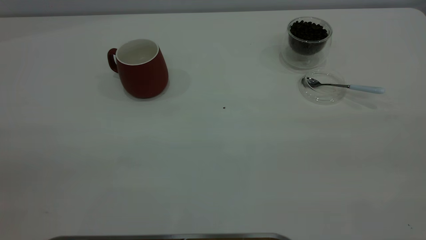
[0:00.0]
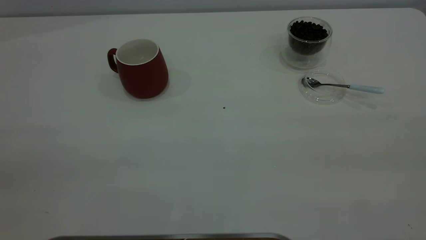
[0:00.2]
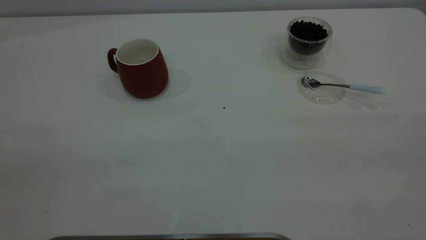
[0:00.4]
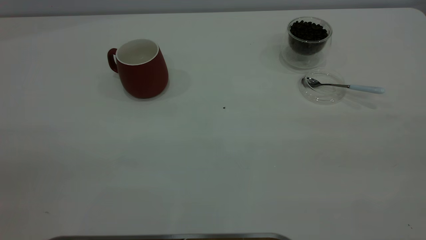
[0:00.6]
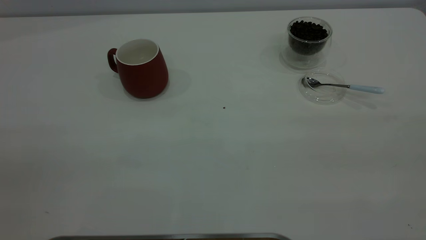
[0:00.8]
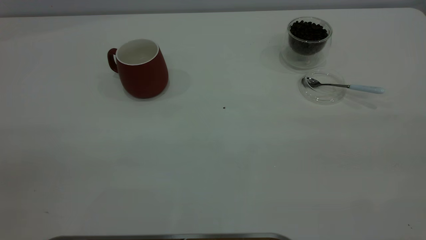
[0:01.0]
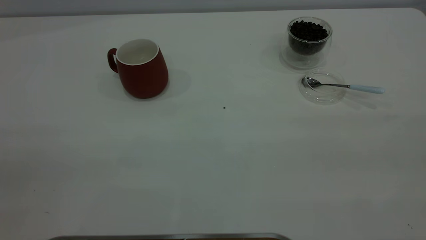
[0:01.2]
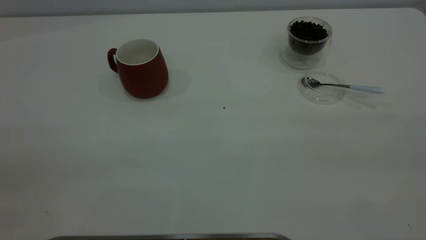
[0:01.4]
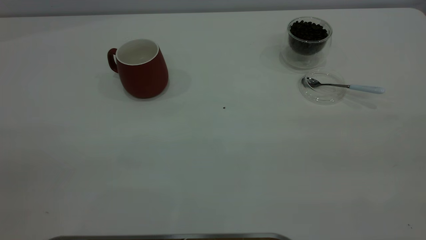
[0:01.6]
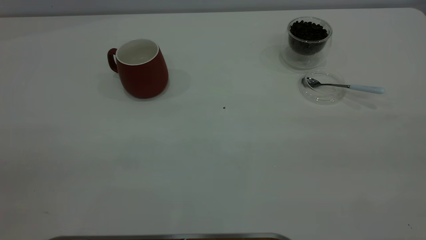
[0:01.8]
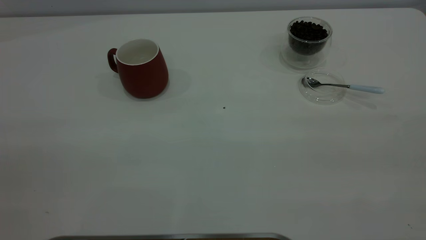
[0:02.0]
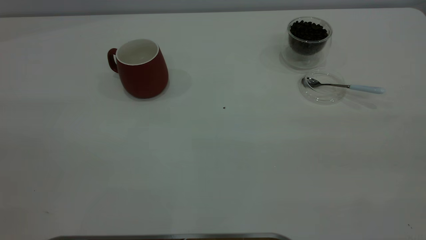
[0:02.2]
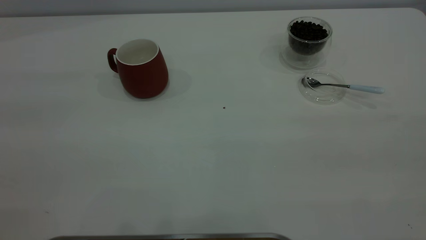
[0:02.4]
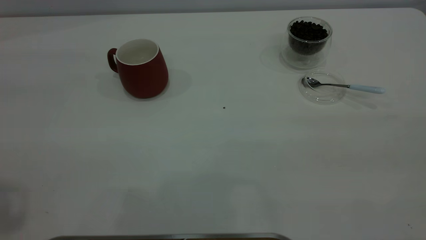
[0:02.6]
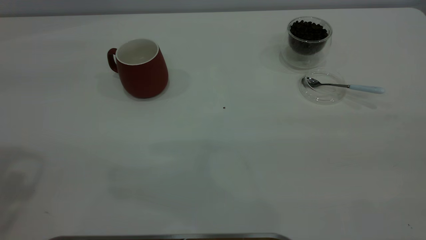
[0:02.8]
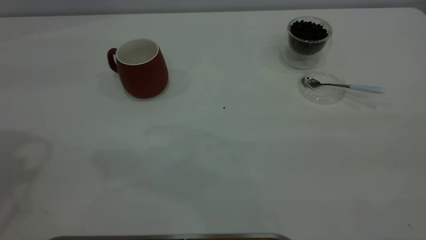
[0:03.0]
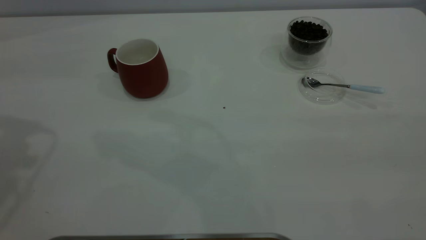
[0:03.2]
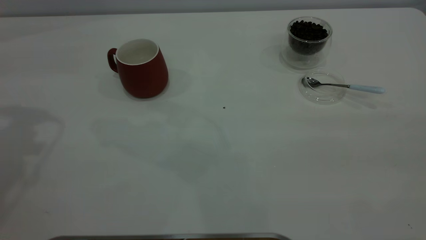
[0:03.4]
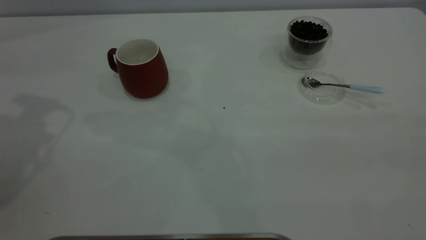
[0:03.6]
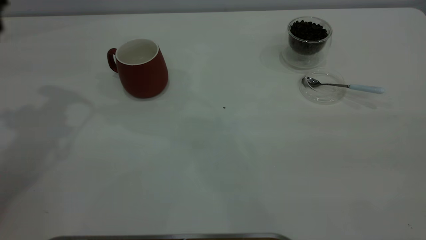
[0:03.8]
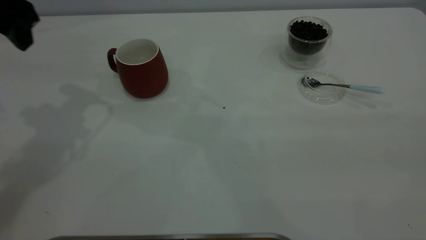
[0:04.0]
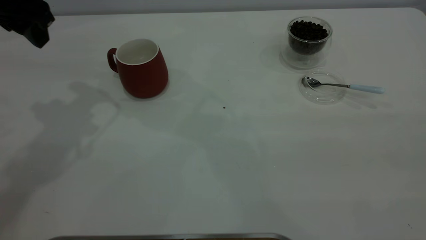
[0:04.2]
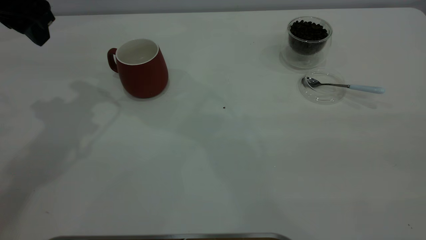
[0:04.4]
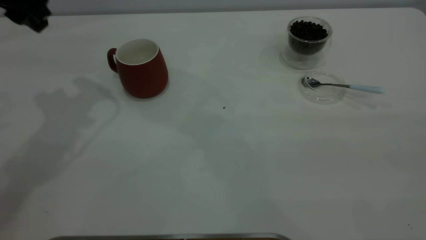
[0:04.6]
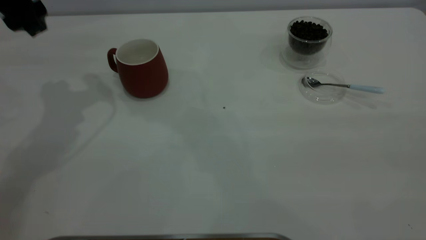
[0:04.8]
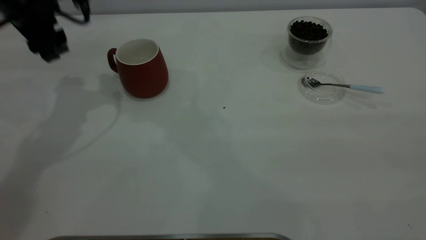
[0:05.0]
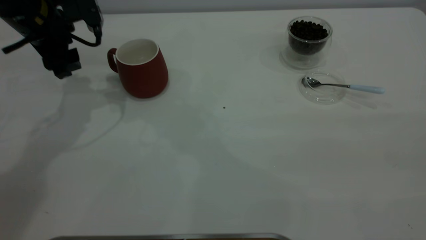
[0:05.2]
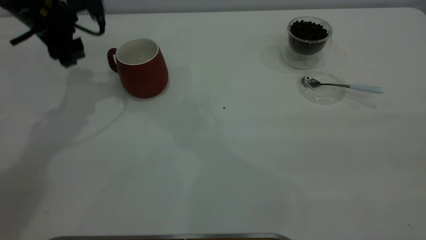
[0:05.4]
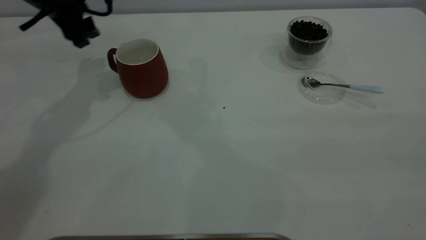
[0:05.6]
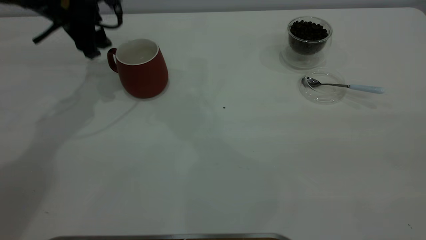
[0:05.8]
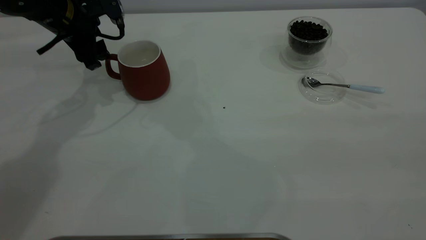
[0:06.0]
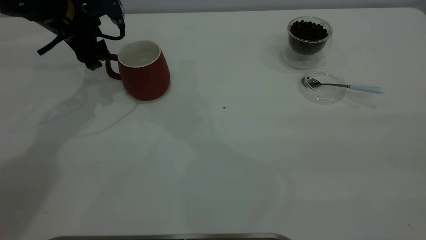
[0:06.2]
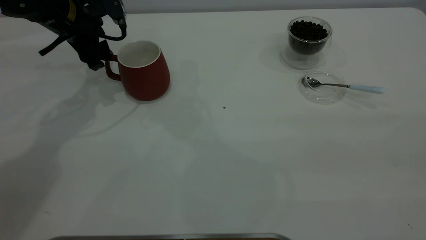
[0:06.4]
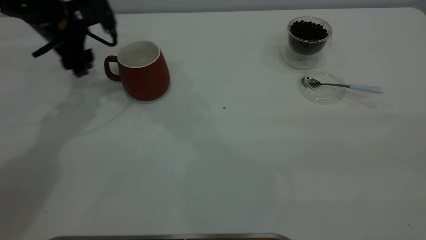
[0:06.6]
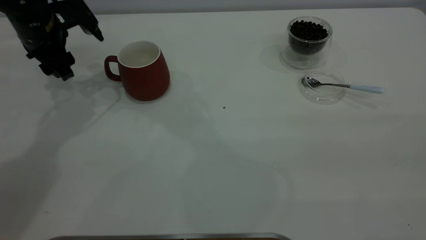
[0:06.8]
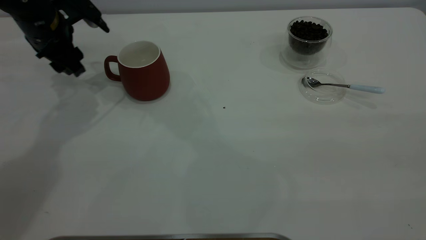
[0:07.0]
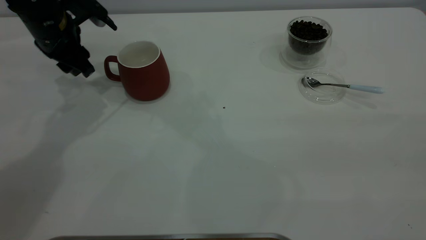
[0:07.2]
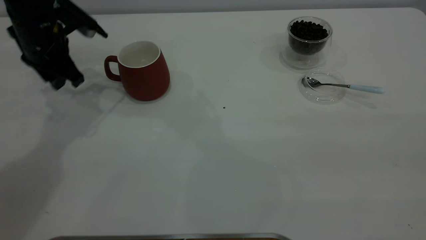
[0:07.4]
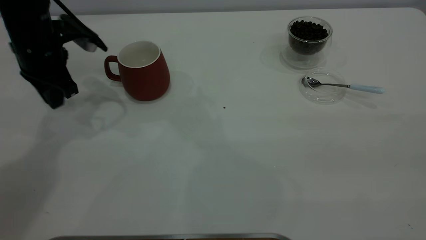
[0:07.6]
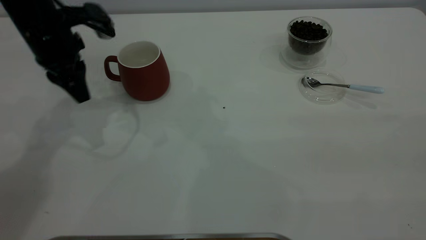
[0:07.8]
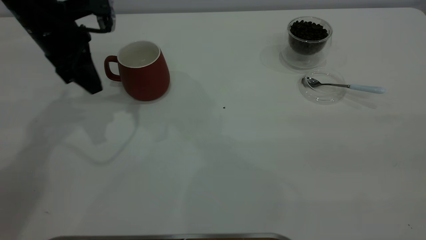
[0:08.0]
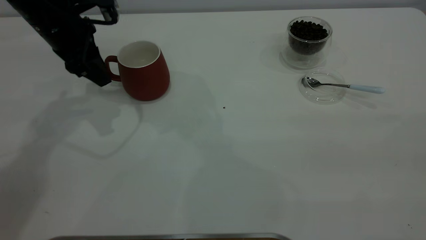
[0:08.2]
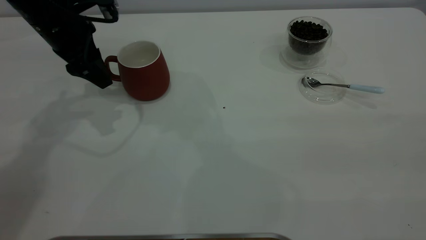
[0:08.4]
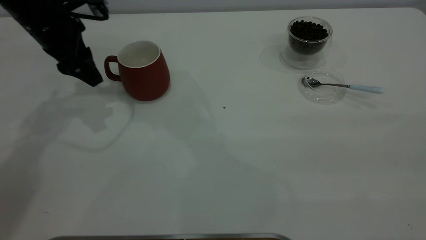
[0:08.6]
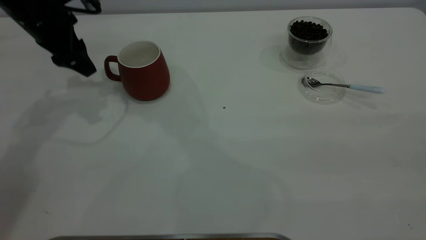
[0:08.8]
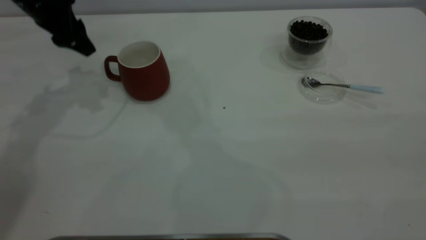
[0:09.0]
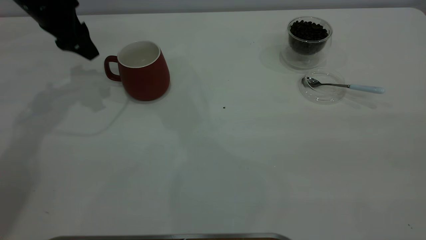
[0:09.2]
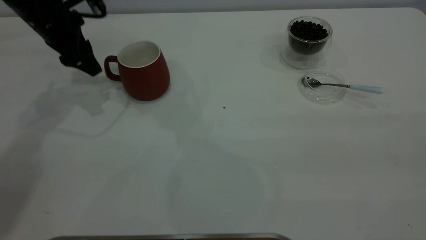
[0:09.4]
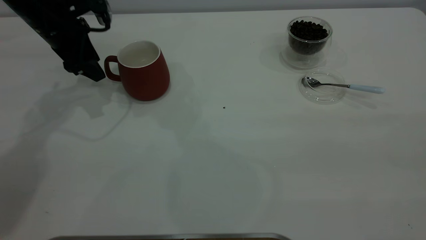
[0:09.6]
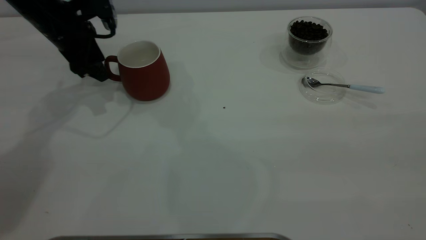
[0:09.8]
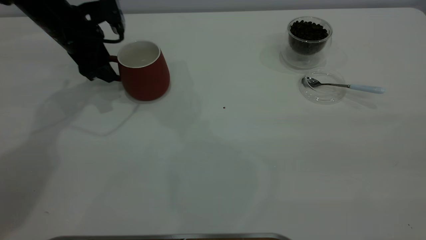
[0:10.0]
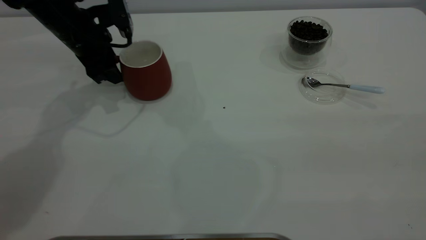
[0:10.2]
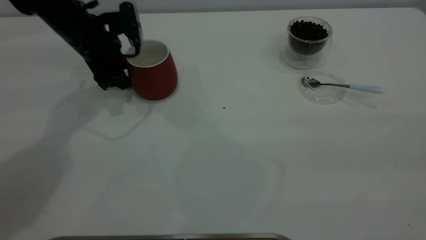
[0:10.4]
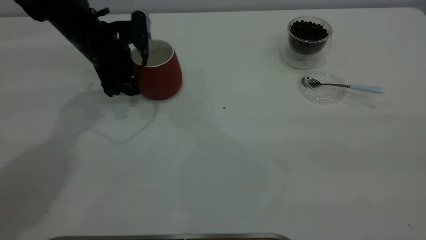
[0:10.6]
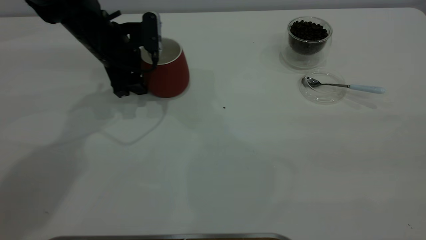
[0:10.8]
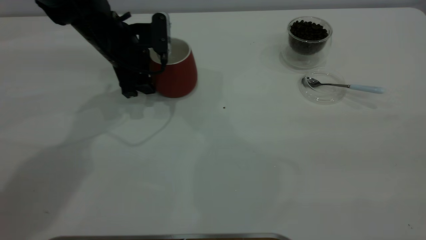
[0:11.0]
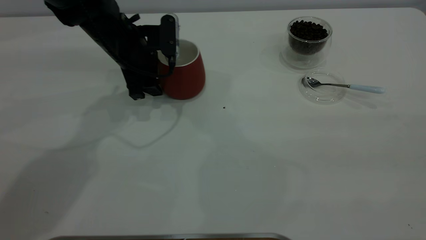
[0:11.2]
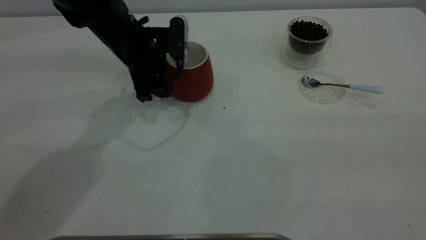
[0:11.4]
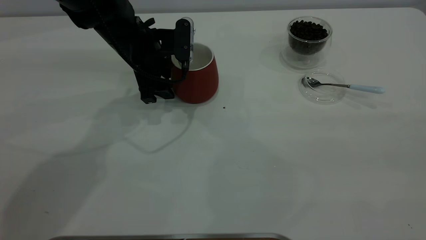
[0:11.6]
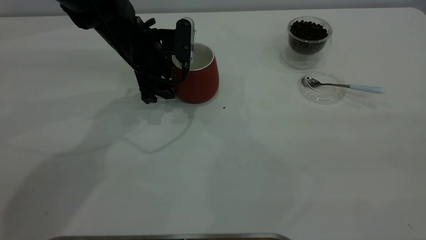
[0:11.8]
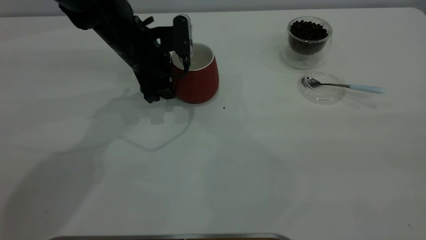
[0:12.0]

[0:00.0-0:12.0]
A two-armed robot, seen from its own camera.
Task of the whole recording: the left gripper place the red cup in the center of the table, the right gripper take the blue spoon from the cup lid and scoop out the coffee beans from the coffee cup and put them into the red cup, the right gripper put the spoon back into the cup lid.
0:00.0 to 0:01.6: Both grippers stay put.
0:03.0 to 0:04.4: The left gripper moves forward, downward and to the right, approximately 15 cm.
0:04.4 to 0:06.0: The left gripper moves downward and forward, approximately 15 cm.
0:06.0 to 0:07.6: The left gripper changes place by about 5 cm, and closes up.
0:07.6 to 0:09.0: The left gripper heads forward, covering roughly 5 cm, and opens.
0:09.0 to 0:10.4: The left gripper shifts some 10 cm downward and to the right.
0:10.4 to 0:12.0: The left gripper travels to the right by about 5 cm.

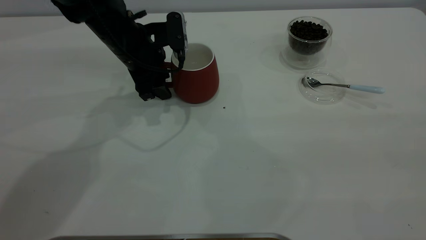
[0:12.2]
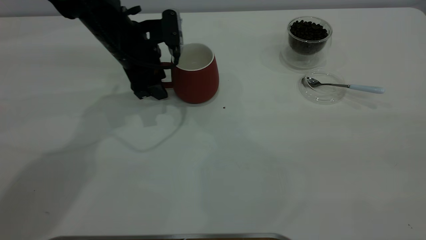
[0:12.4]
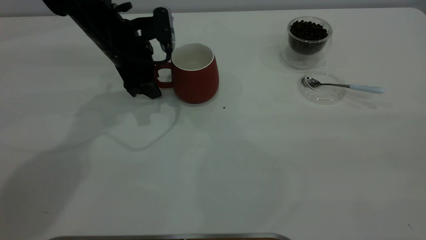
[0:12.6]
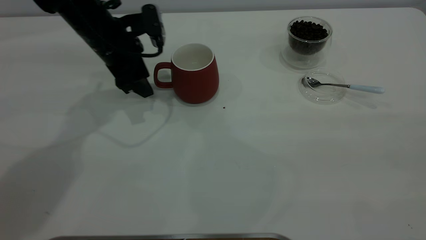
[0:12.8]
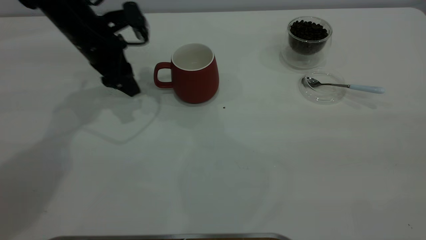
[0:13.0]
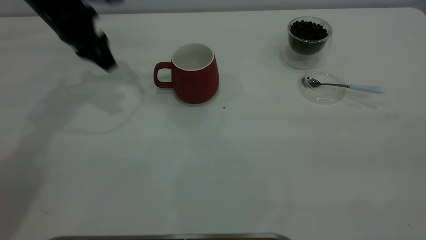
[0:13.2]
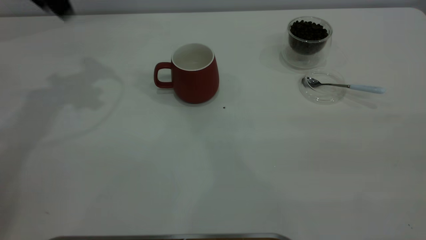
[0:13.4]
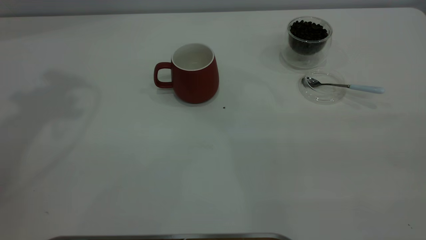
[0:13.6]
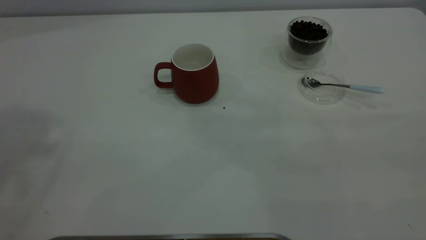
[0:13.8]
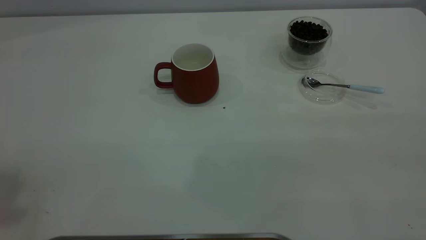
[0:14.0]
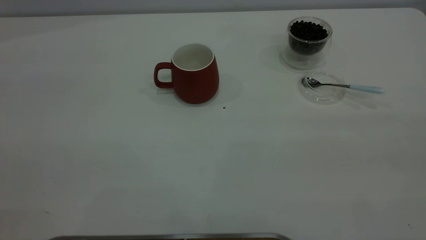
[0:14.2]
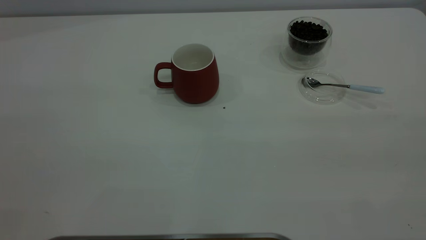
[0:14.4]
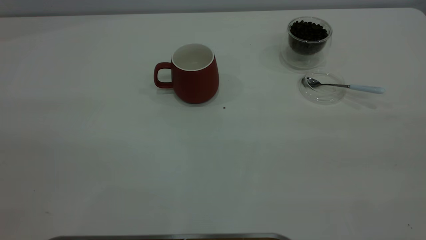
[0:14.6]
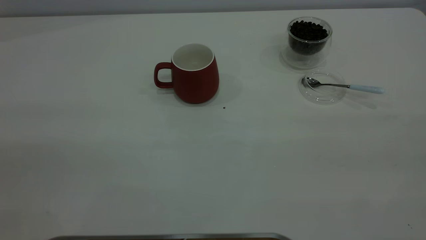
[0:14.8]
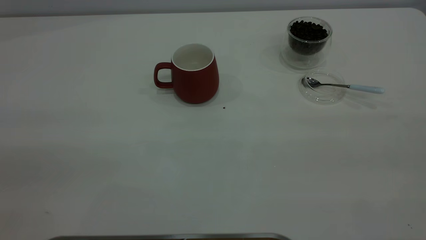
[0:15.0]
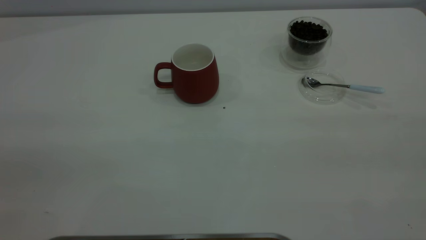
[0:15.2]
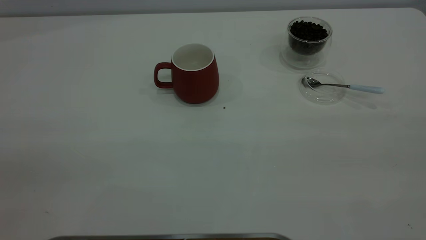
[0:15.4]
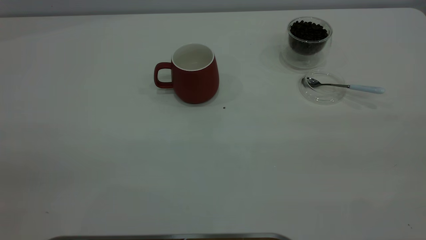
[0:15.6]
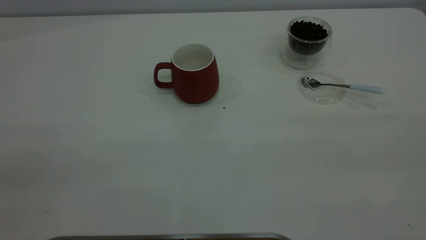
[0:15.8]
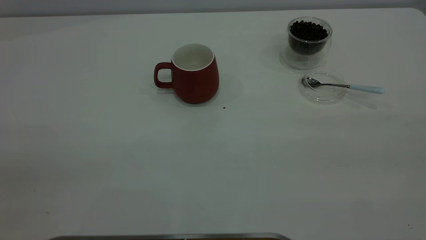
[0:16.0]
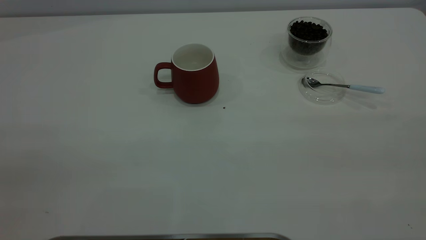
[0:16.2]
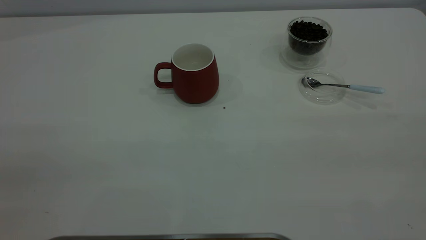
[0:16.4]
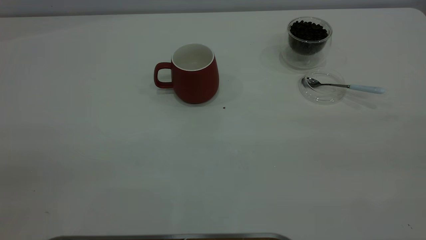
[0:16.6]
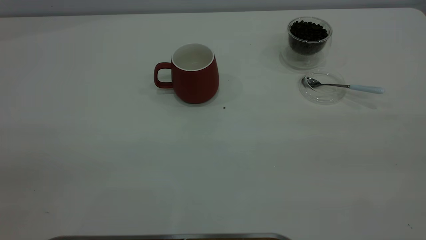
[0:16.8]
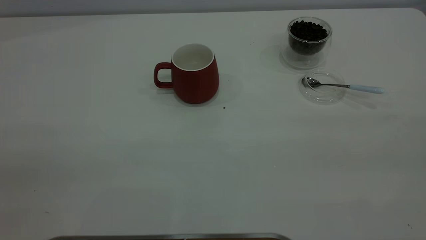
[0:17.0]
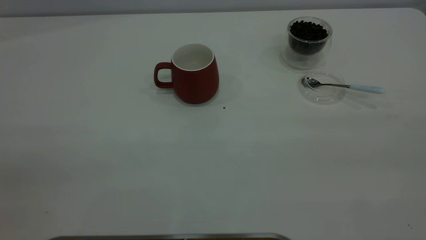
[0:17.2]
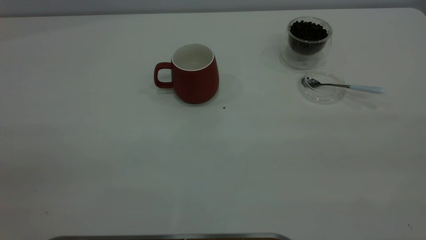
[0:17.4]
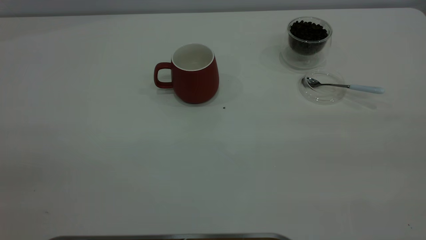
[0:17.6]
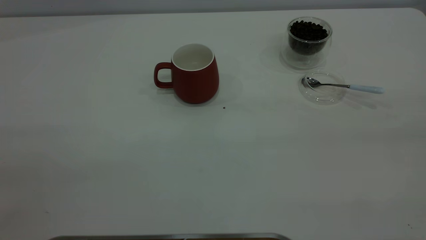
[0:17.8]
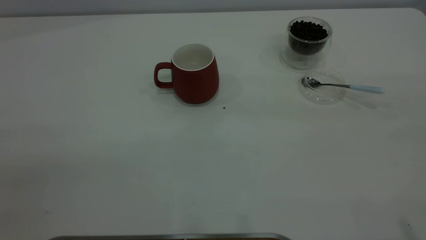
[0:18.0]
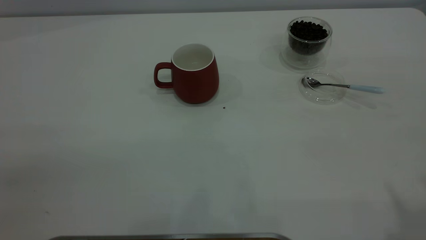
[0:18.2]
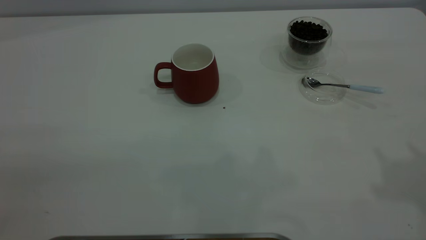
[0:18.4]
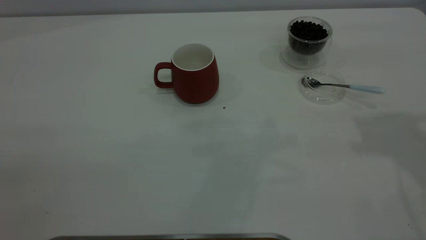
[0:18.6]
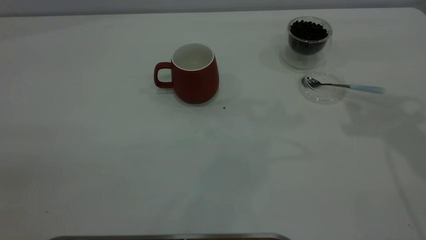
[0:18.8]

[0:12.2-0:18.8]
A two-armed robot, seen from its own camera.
Task of the whole recording: the left gripper place the red cup in the center of the table, the right gripper take the blue spoon from the cup lid and scoop out the coffee beans from the coffee cup and put them into the red cup, the right gripper put the spoon back into the cup lid.
0:12.2 to 0:13.8: The left gripper heads upward and backward, covering some 50 cm.
